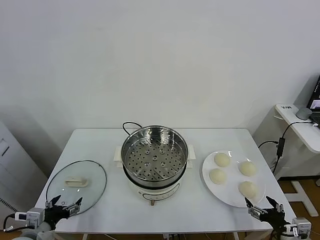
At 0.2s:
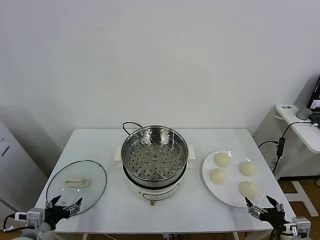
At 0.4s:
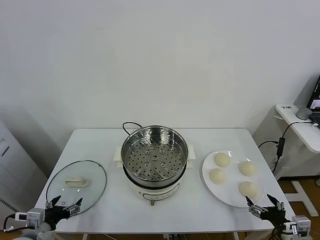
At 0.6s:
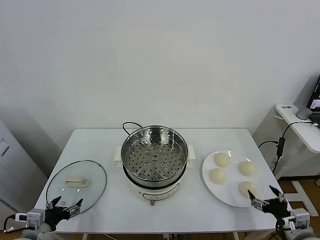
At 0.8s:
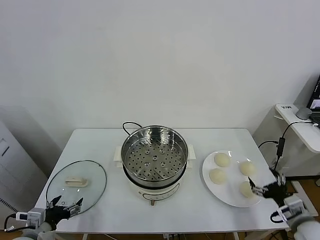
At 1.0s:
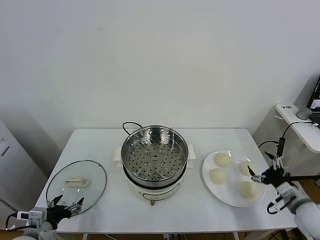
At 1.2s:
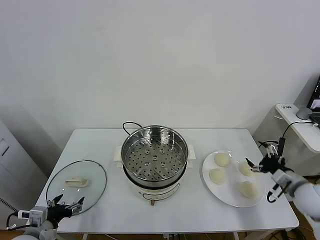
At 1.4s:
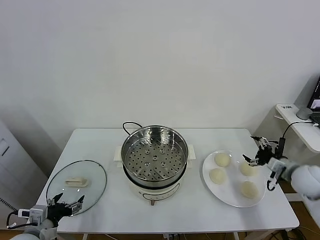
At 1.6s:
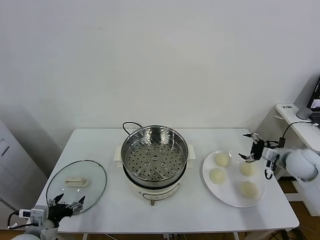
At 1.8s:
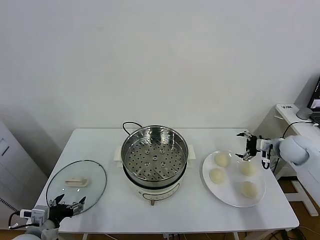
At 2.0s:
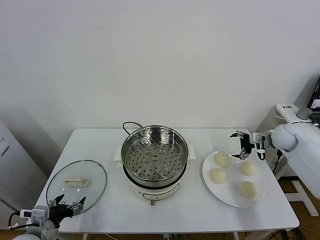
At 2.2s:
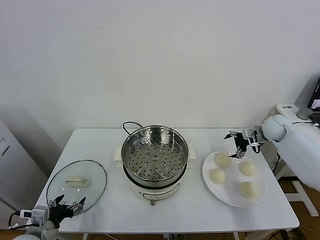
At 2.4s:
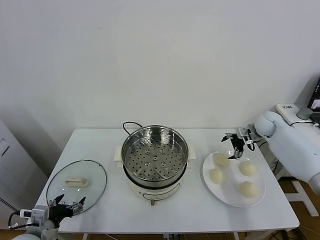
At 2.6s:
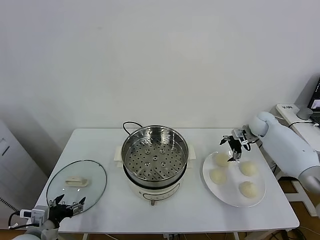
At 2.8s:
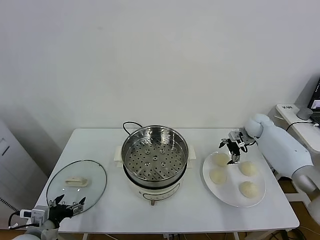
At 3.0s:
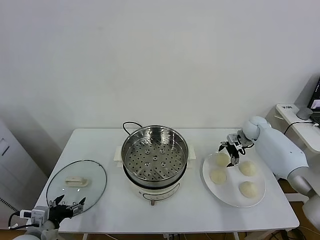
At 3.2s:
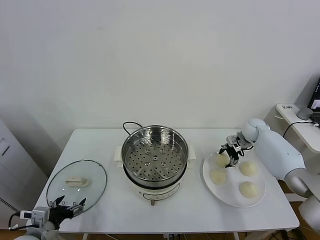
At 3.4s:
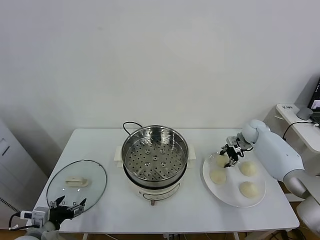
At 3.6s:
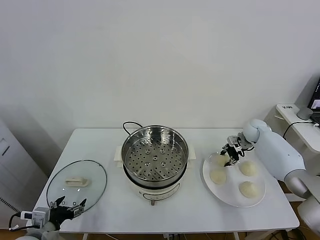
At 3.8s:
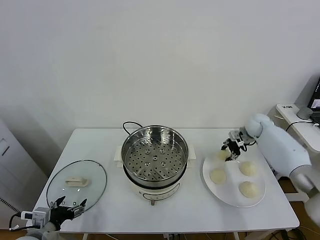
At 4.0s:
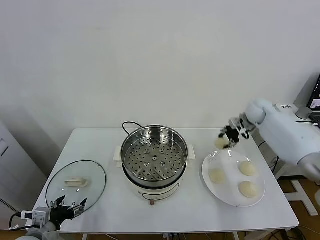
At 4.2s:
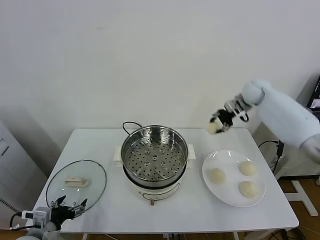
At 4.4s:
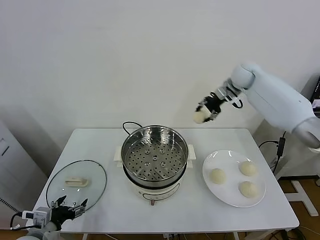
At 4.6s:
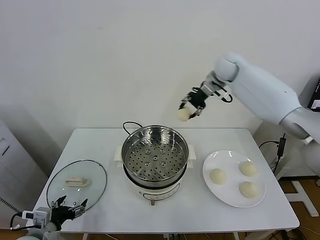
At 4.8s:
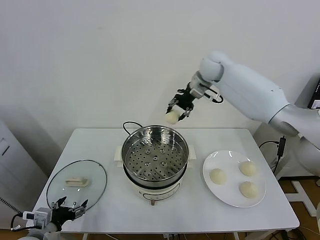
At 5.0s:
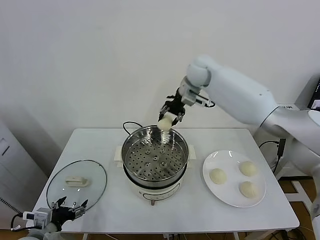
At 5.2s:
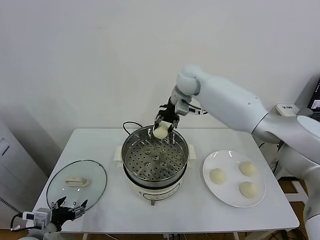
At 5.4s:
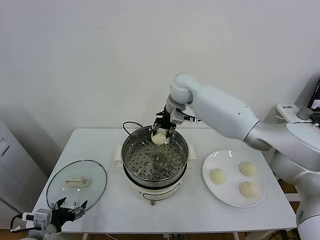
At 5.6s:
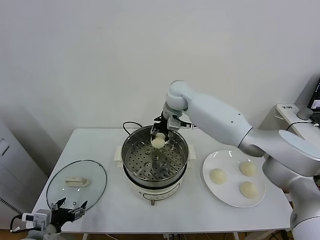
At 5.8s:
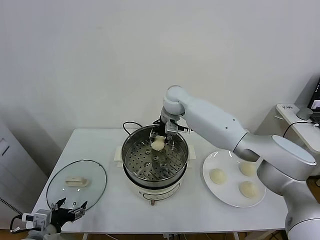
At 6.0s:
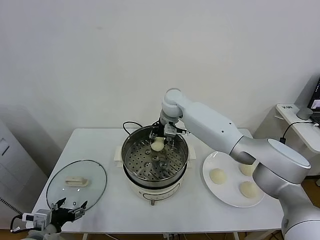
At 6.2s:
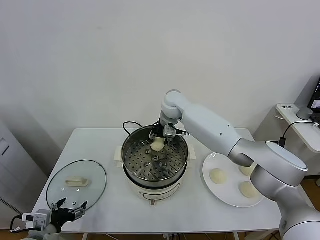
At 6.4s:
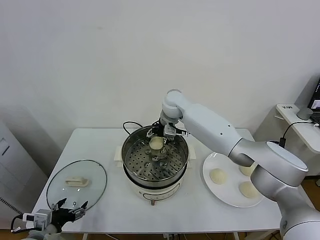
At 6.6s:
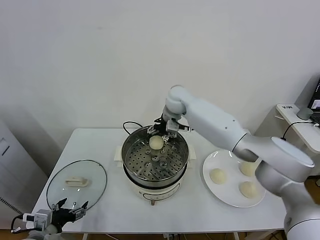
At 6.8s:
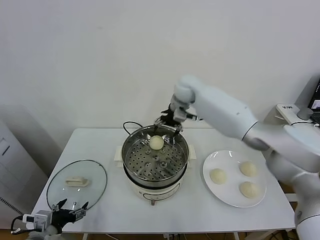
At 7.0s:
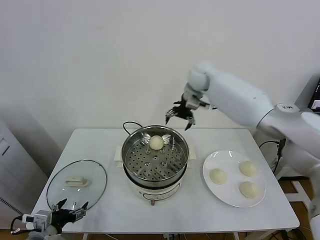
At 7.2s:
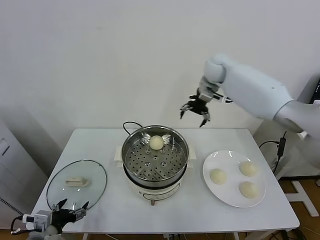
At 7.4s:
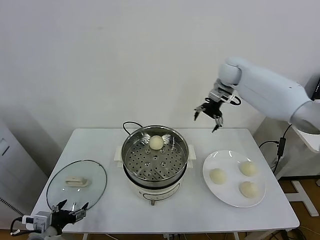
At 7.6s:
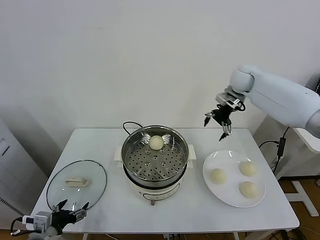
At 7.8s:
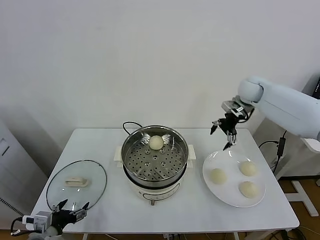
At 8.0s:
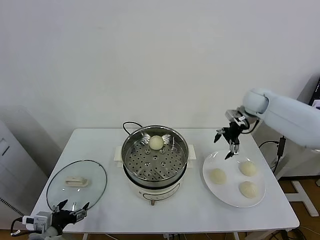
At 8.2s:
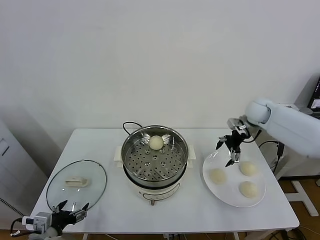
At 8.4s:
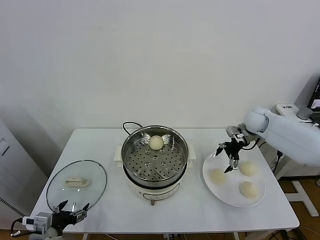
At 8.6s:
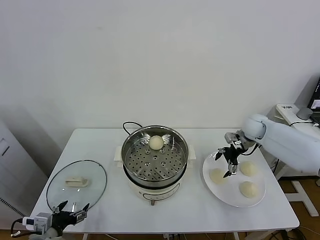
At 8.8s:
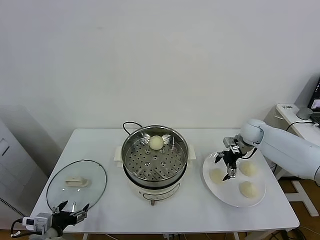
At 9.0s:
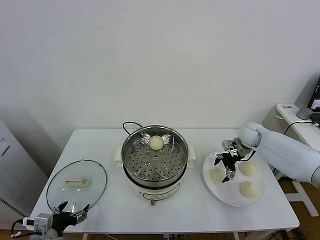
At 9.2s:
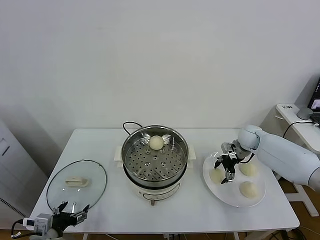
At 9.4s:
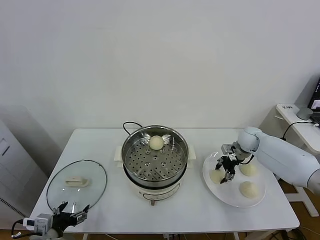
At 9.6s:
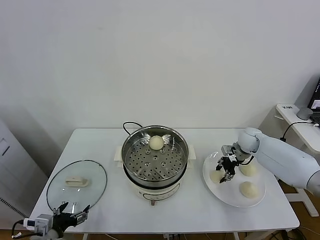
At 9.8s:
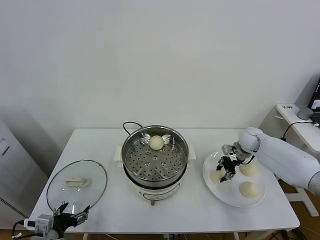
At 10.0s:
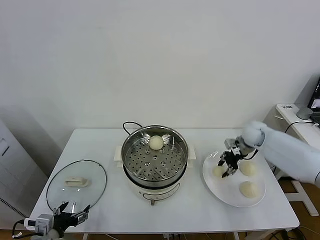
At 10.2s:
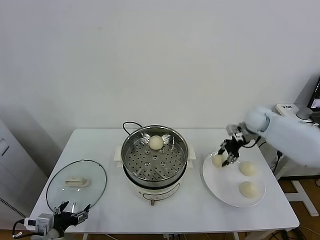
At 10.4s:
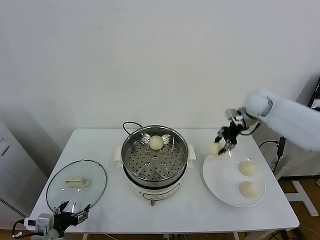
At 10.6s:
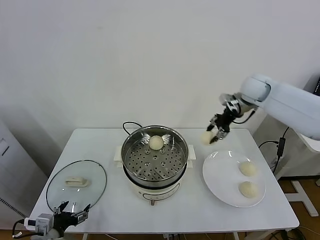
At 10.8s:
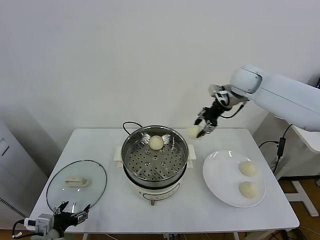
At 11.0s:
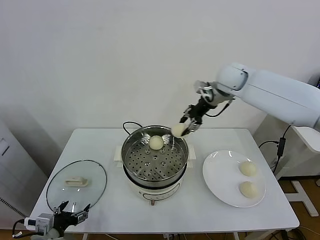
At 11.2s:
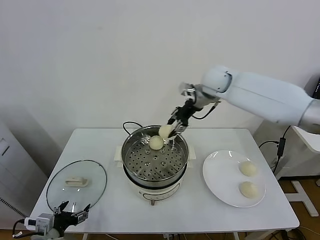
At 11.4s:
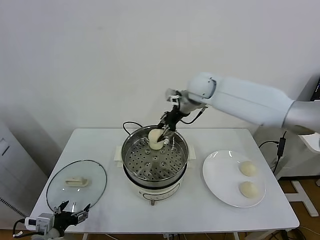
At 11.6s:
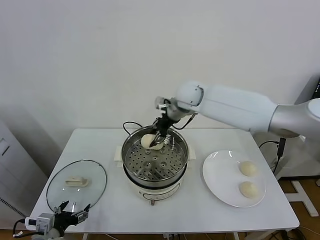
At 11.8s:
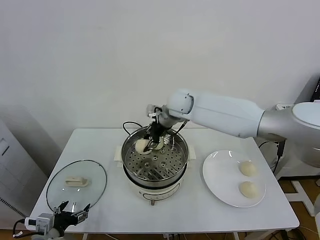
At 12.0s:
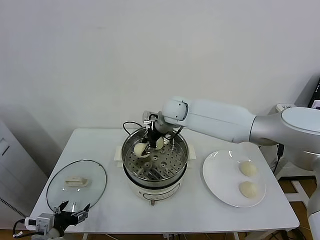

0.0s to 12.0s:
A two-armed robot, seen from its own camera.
Task of the whole recording: take steamed baozi put them in steamer.
Step, 0.0s to 3.4s: Grasp the baozi in the plate with right gripper.
Step, 3.6s to 6.4s: Place the baozi on the steamer with right gripper.
Step, 6.6s to 9.6s: Grasp the baozi in the plate with right gripper.
1.6s to 3.0s: The right gripper heads forward and to the left, covering some 20 cm.
3.0s to 4.4s: The right gripper goes roughly 30 cm upward and to the left, and closes.
4.4s to 6.0s: The right gripper shifts some 25 cm to the left and downward.
6.0s to 7.6s: The right gripper travels to the right by roughly 25 cm, and opens its fingers.
7.6s to 9.0s: The right gripper is displaced downward by approximately 20 cm.
9.0s to 10.4s: The right gripper heads upward, covering roughly 15 cm, and closes its fingers.
10.4s to 12.0s: The right gripper shifts roughly 30 cm to the left.

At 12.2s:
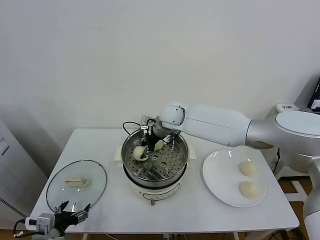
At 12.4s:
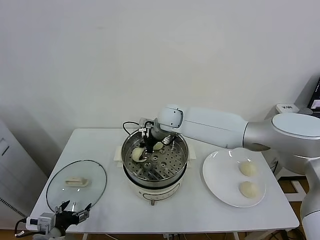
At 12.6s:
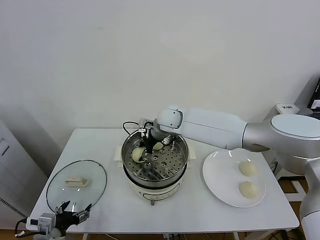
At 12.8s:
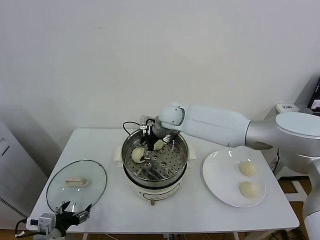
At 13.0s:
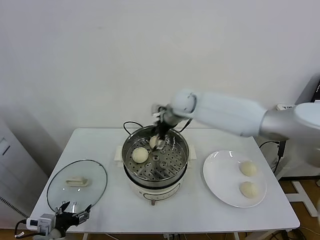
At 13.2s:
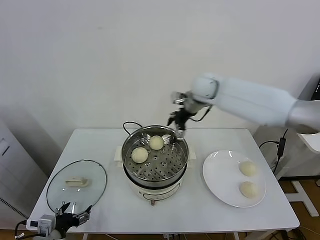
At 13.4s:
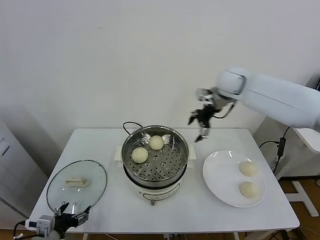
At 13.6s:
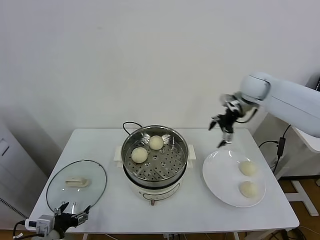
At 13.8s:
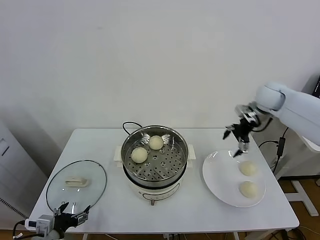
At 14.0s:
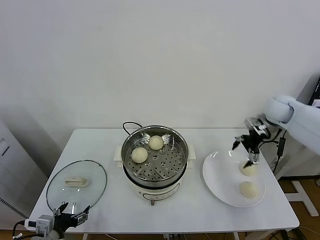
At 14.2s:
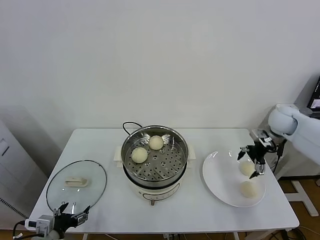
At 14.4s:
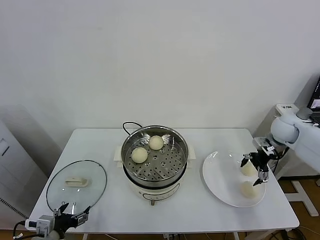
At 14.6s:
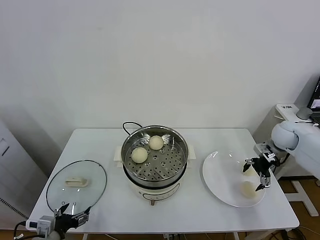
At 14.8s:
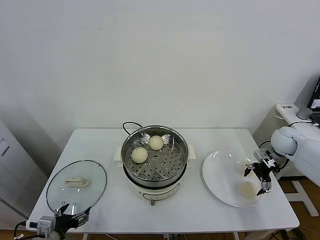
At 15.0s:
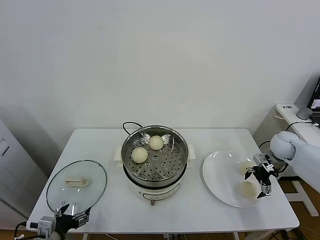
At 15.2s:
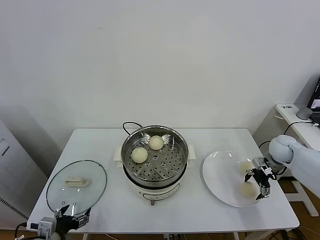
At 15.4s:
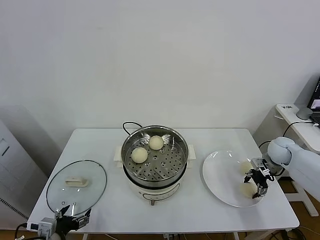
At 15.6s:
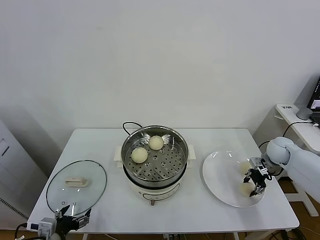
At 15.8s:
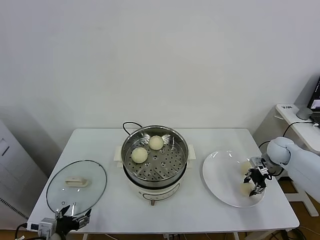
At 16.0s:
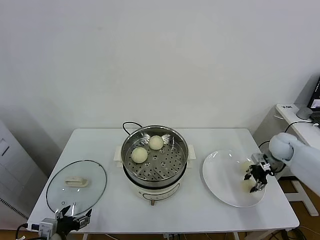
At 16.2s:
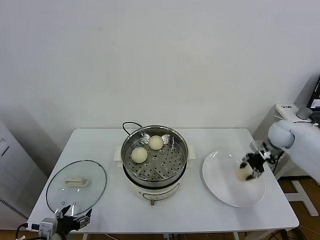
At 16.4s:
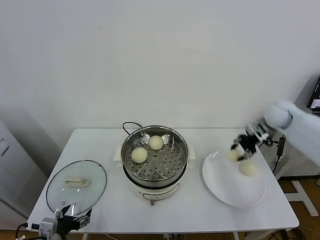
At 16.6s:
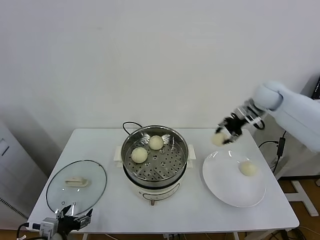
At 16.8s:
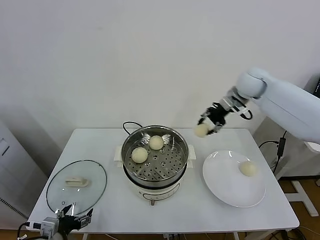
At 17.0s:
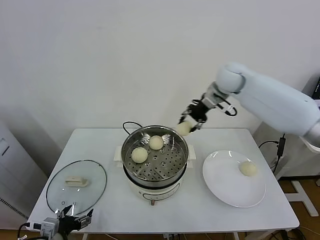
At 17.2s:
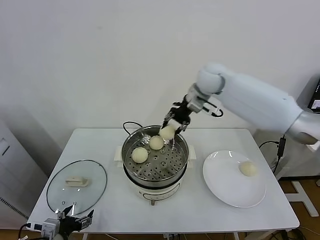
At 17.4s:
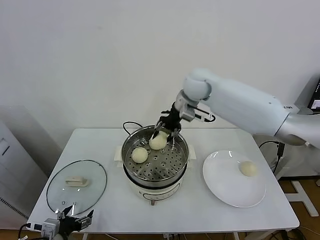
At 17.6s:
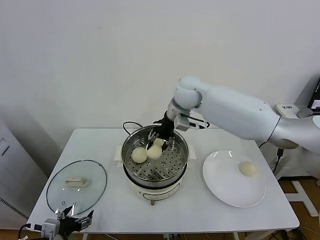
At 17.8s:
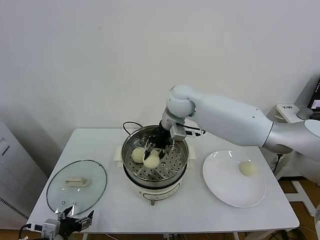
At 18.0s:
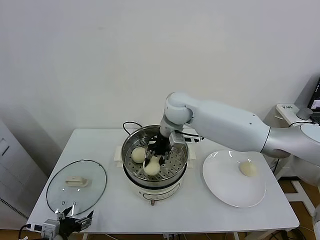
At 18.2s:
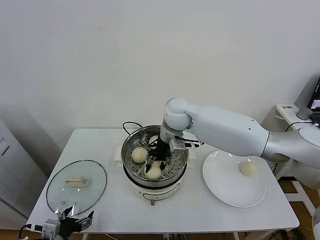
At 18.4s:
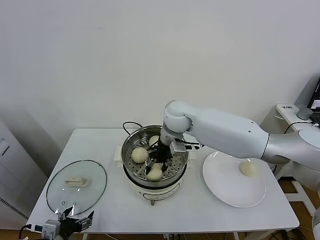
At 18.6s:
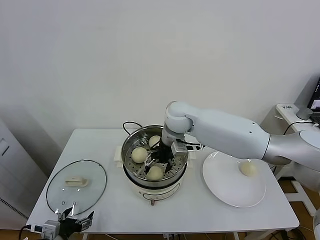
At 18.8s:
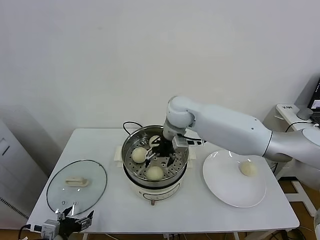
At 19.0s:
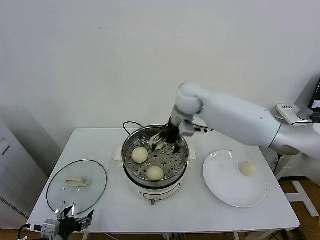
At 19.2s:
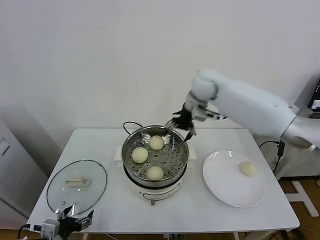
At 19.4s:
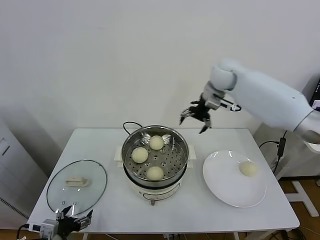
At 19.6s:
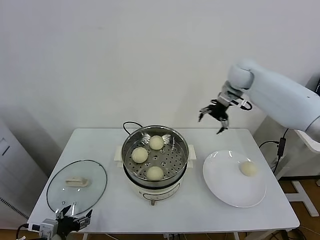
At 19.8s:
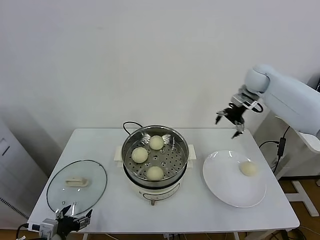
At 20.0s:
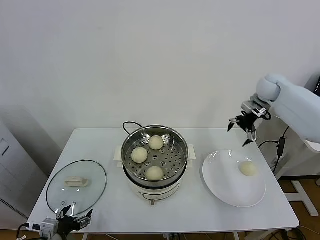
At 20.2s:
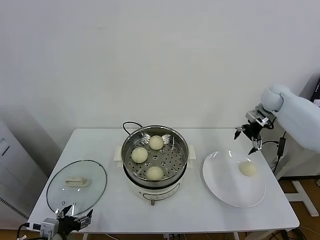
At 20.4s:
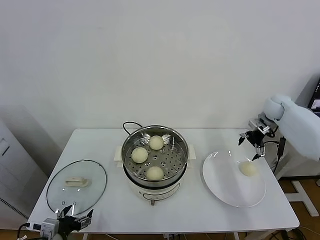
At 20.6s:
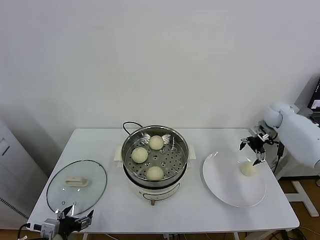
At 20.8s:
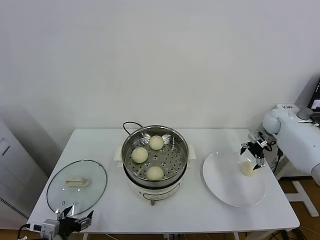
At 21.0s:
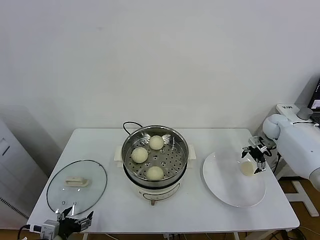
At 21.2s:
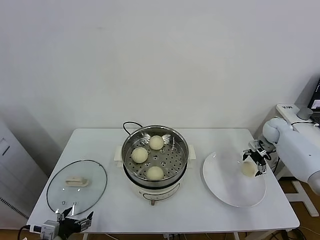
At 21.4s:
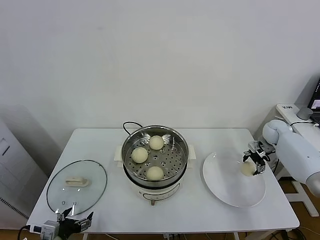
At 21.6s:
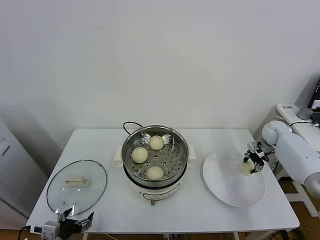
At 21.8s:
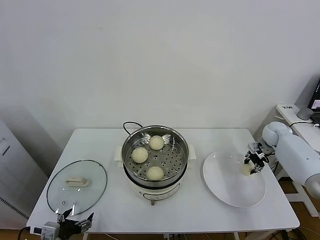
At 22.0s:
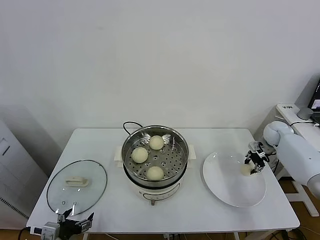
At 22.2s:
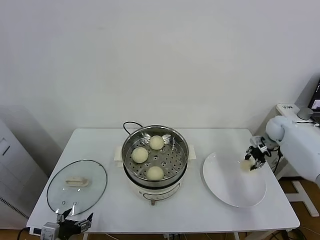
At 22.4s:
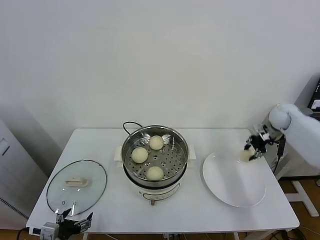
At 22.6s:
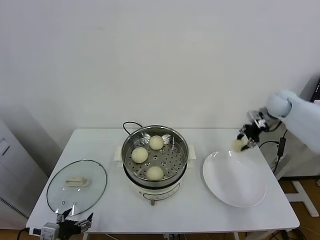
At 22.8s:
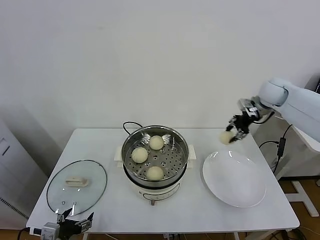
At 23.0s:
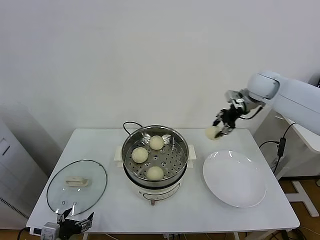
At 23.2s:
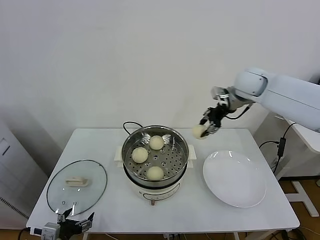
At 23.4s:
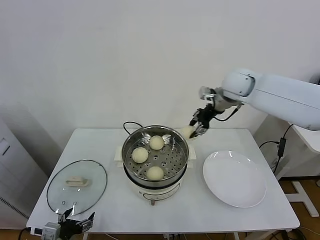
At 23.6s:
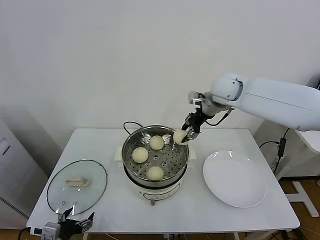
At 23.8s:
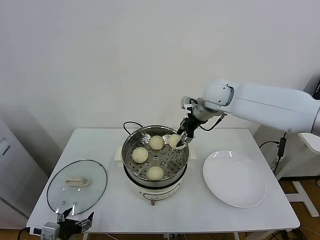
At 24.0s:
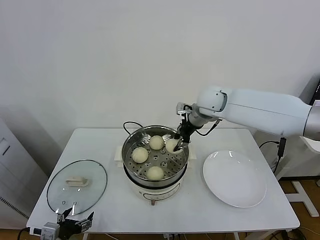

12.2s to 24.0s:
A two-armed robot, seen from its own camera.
Task of the whole recording: take steamed baozi put them in steamer.
Step, 13.0s to 15.6s: Grasp the baozi in the plate with right gripper.
Step, 16.0s to 18.6s: Place the baozi on the steamer with right gripper.
Step, 19.0s to 21.6s: Grasp the baozi in the plate with right gripper.
12.2s to 13.6s: The right gripper travels to the right by roughly 30 cm, and opens its fingers.
13.6s to 15.2s: The right gripper moves downward, to the right and backward, approximately 25 cm.
15.2s to 16.6s: The right gripper shifts some 25 cm upward and to the left, and closes its fingers.
16.6s to 18.2s: The right gripper shifts some 30 cm to the left.
18.2s to 19.6s: The right gripper shifts roughly 25 cm to the right and forward, and opens up.
19.6s to 21.0s: The right gripper goes approximately 30 cm downward and to the right.
21.0s to 22.6s: The right gripper shifts some 15 cm upward, and closes.
22.6s to 24.0s: The right gripper goes approximately 25 cm to the left.
